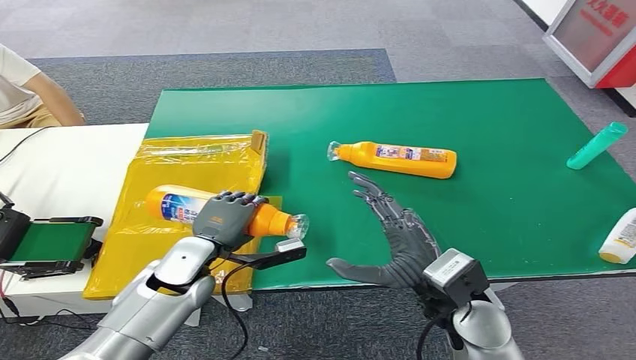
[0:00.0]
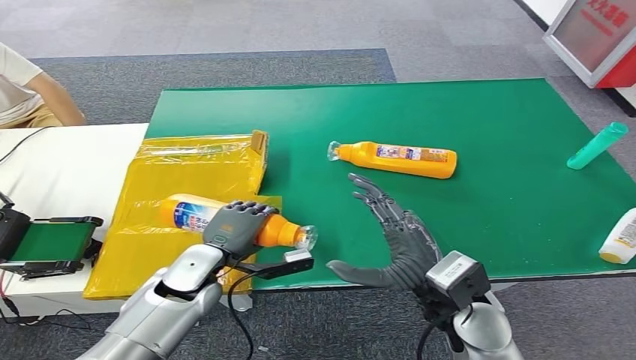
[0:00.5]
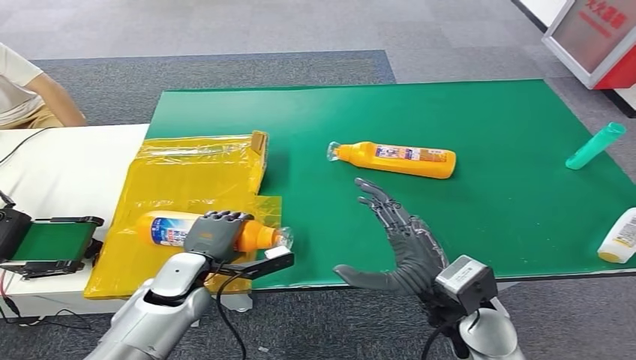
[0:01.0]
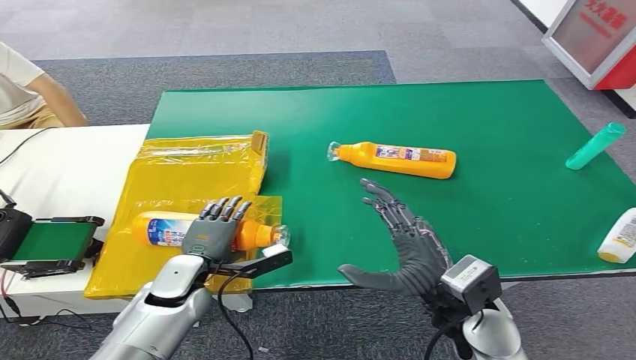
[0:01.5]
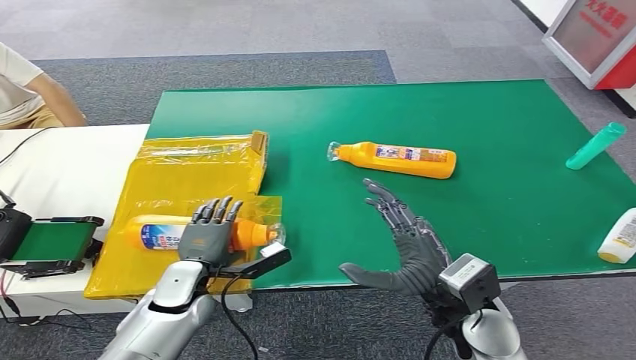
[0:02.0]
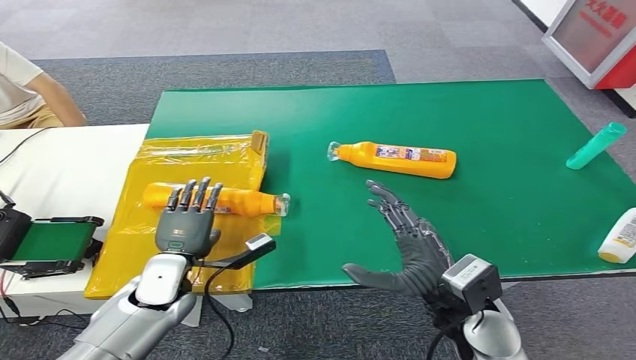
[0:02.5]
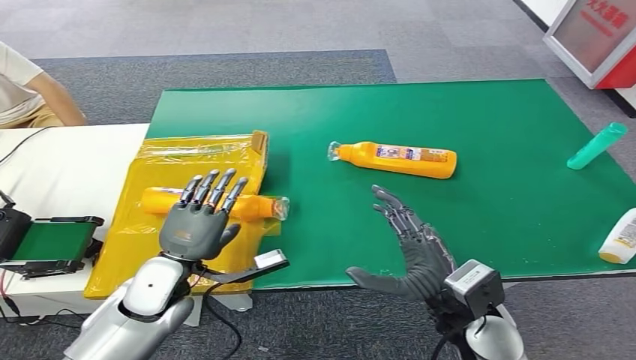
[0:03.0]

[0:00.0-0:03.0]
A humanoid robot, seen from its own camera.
Step, 0:00.0 to 0:03.0: Turn the bottle to the front side.
0:00.0 to 0:01.5: The left hand shifts by approximately 5 cm.
0:01.5 to 0:03.0: The left hand travels upward by approximately 5 cm.
